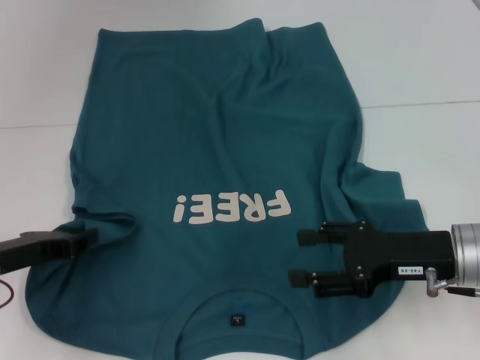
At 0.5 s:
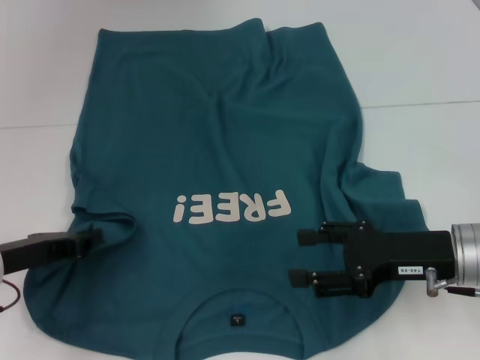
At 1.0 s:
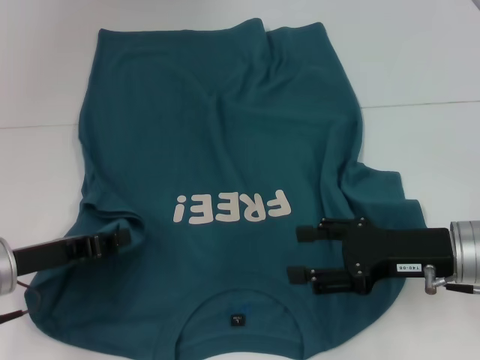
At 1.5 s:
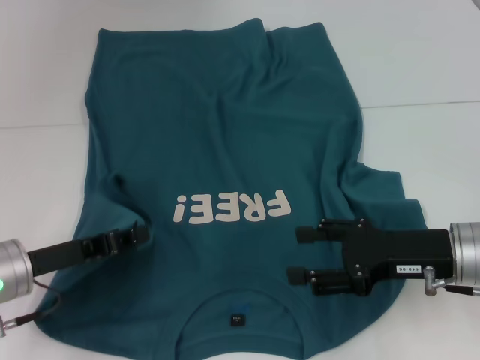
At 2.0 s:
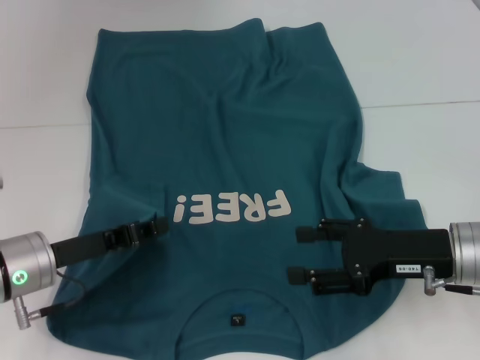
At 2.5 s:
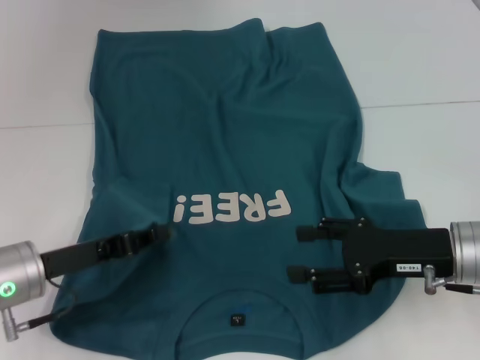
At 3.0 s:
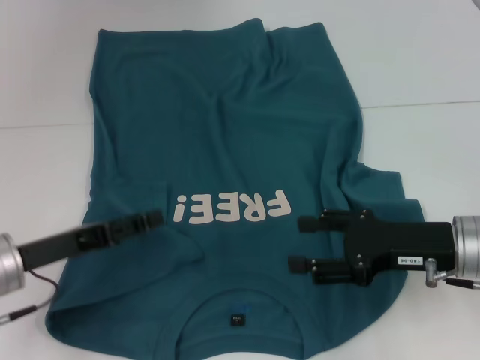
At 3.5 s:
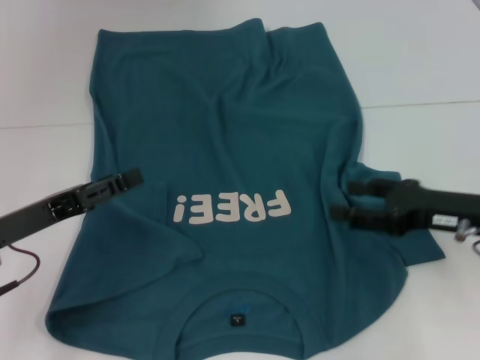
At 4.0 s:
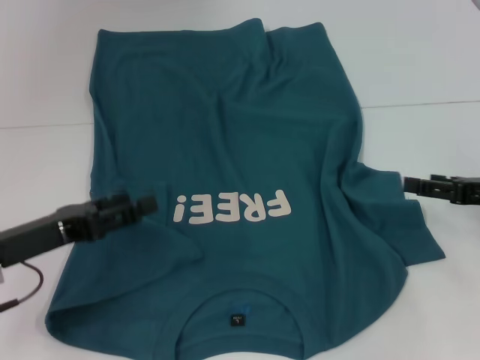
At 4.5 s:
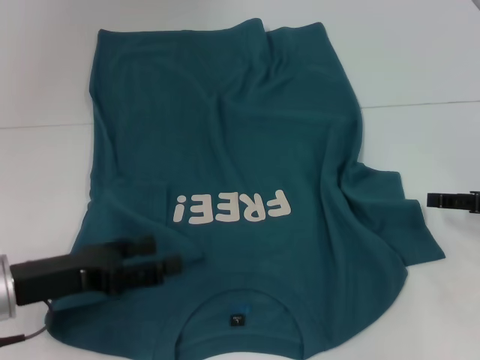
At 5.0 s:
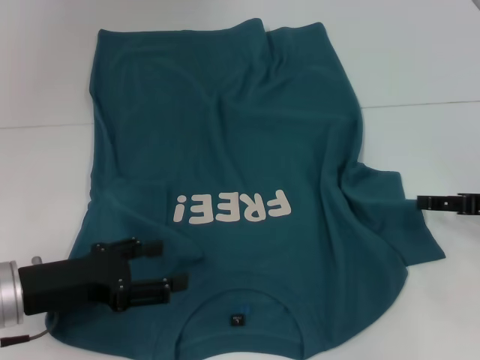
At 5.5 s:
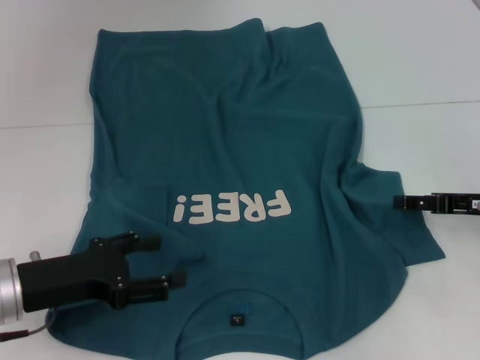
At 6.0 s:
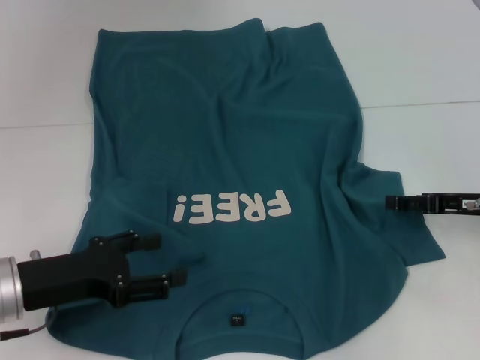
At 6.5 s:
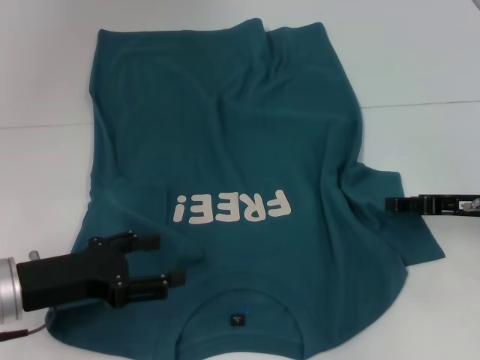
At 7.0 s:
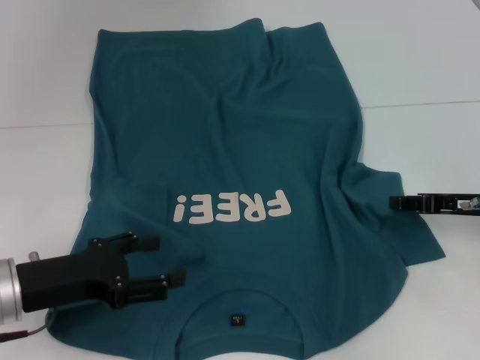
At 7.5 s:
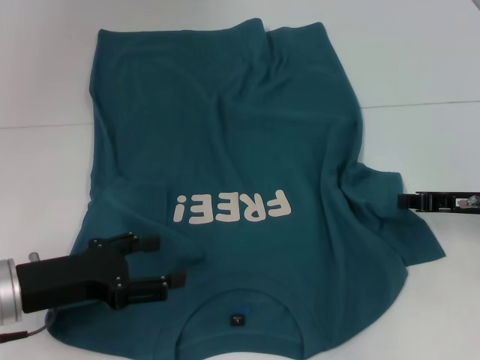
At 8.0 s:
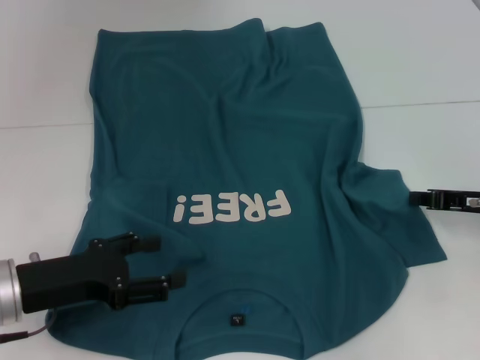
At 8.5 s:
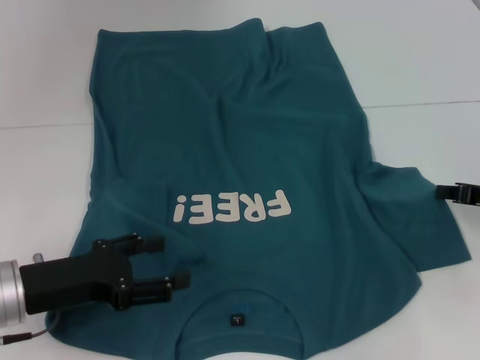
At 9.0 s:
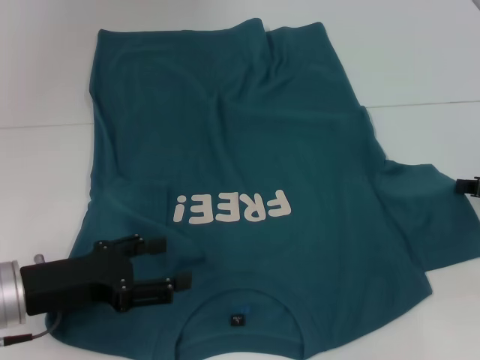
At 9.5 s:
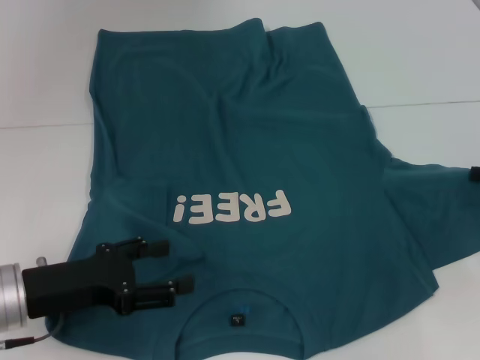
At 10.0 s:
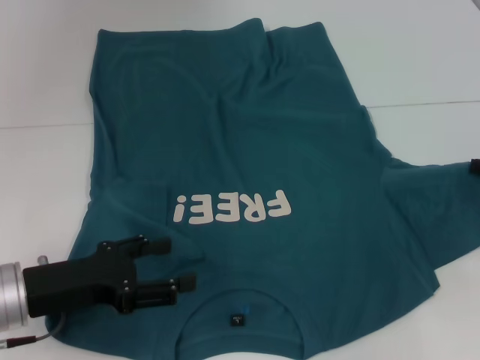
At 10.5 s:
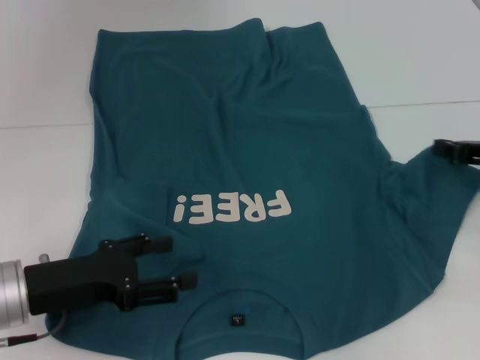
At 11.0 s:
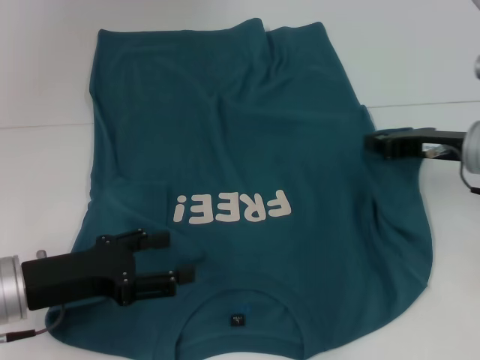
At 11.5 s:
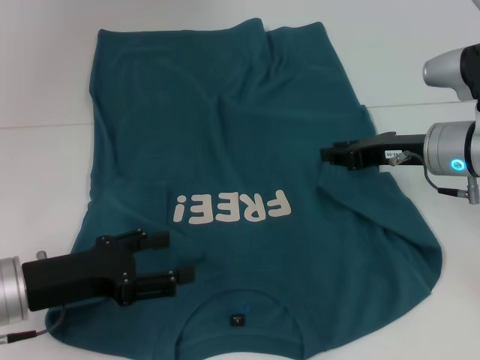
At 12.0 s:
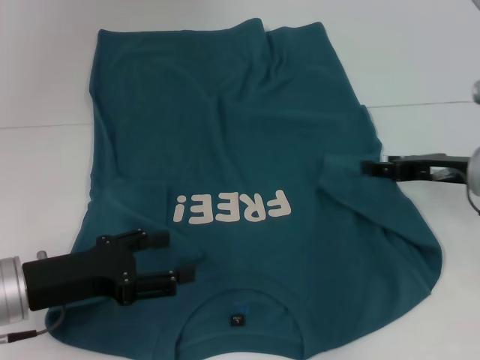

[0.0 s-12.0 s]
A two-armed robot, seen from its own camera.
Step, 0.0 to 3.0 s: Fold the bottom left sleeve with your left hand.
0.0 to 2.0 s: The left gripper moves to the right, some 5 cm.
2.0 to 4.0 s: The right gripper moves to the right, roughly 10 cm, while the left gripper opens its fingers.
6.0 to 8.0 s: The right gripper closes.
8.0 to 10.0 s: The right gripper shifts approximately 5 cm to the right.
10.0 to 12.0 s: The right gripper goes roughly 10 cm to the left, and opens.

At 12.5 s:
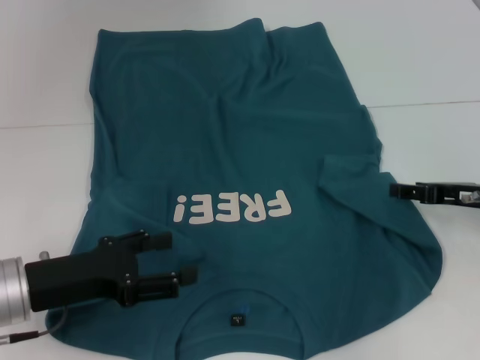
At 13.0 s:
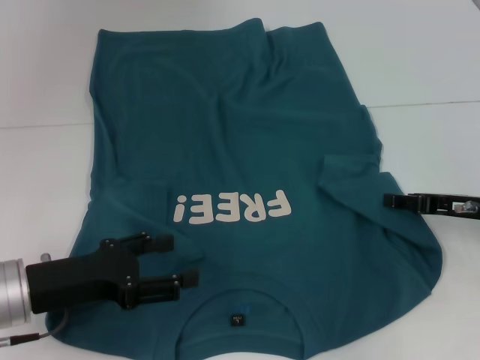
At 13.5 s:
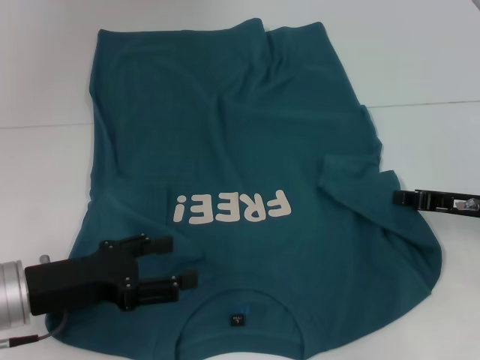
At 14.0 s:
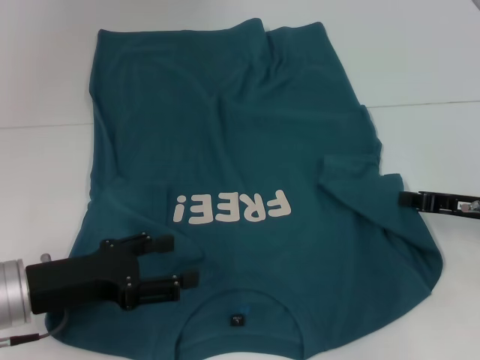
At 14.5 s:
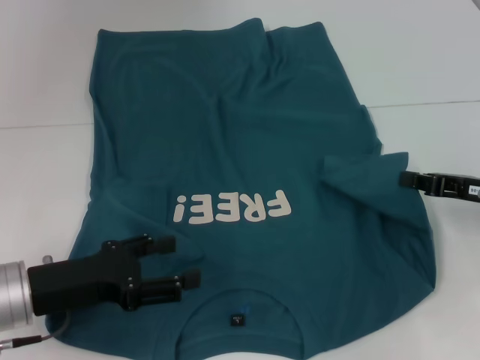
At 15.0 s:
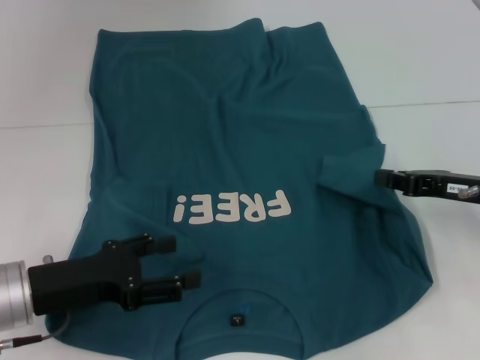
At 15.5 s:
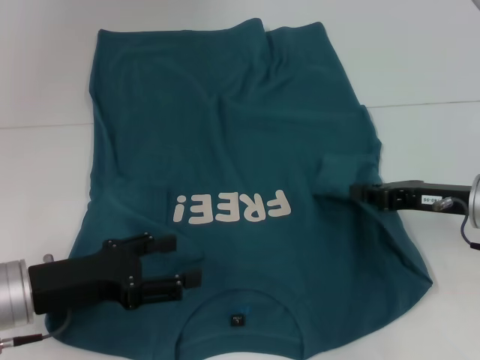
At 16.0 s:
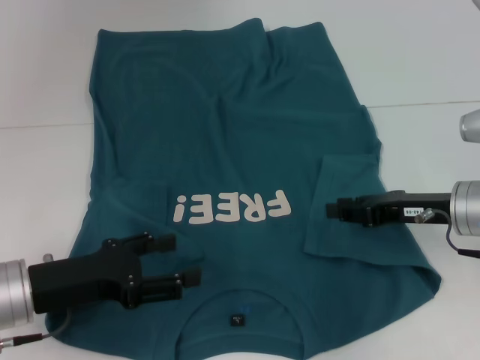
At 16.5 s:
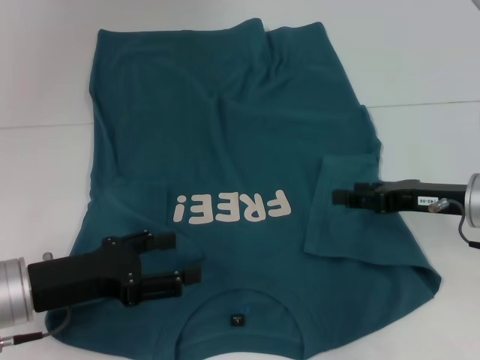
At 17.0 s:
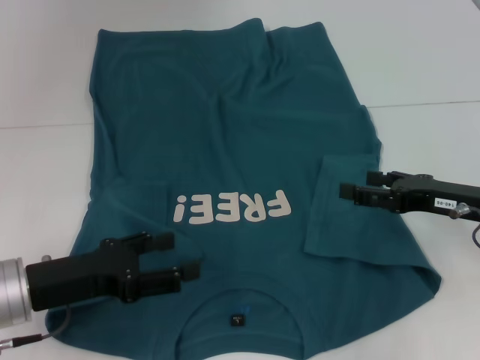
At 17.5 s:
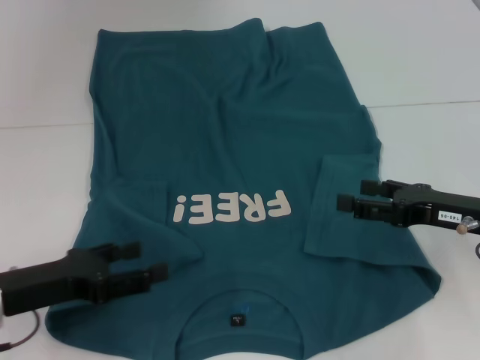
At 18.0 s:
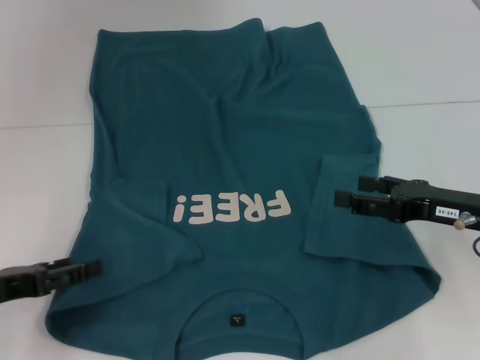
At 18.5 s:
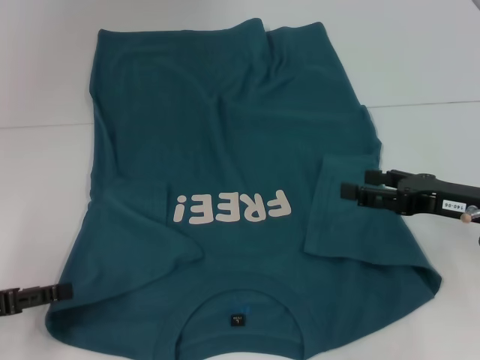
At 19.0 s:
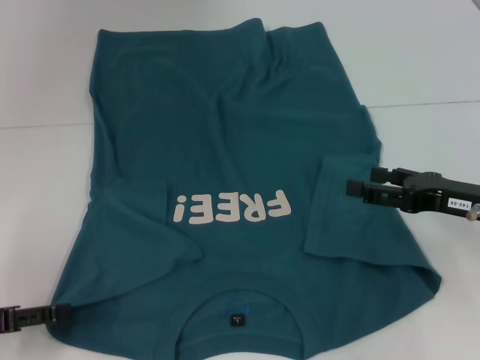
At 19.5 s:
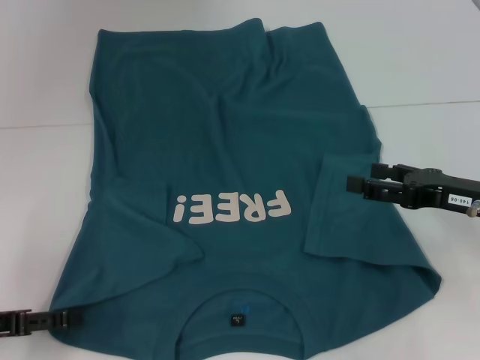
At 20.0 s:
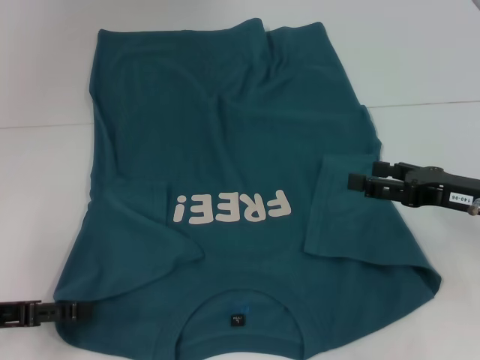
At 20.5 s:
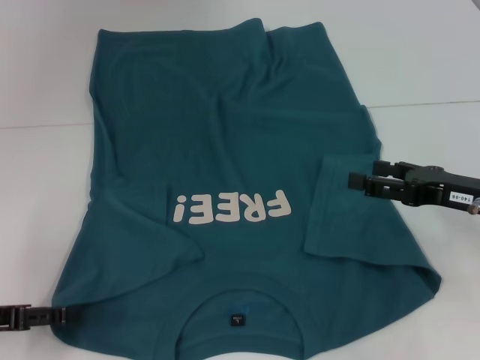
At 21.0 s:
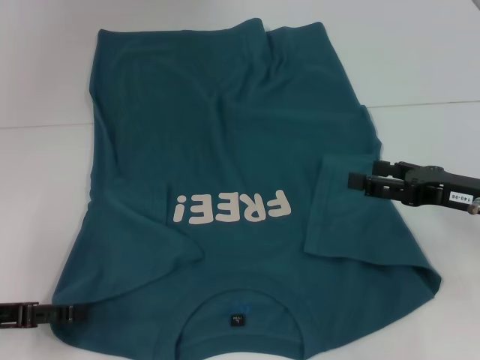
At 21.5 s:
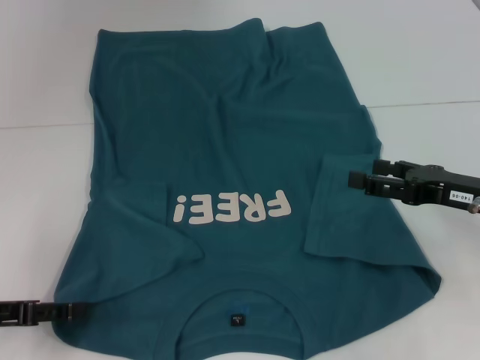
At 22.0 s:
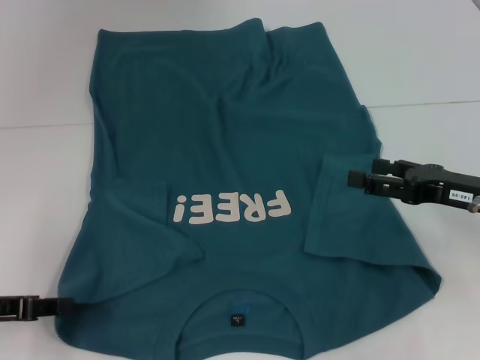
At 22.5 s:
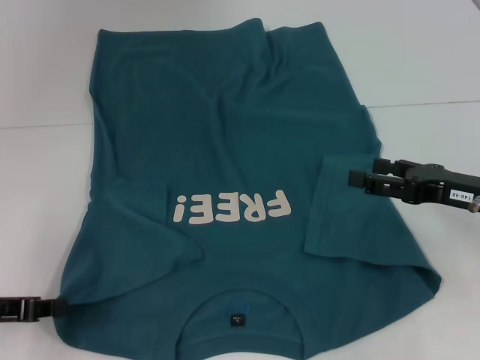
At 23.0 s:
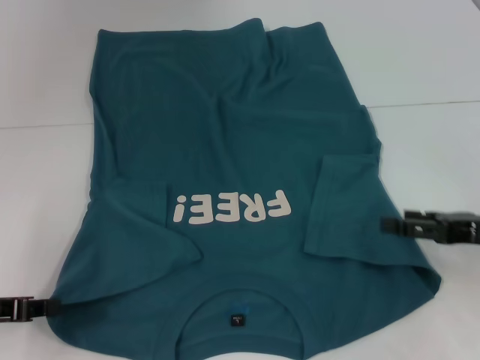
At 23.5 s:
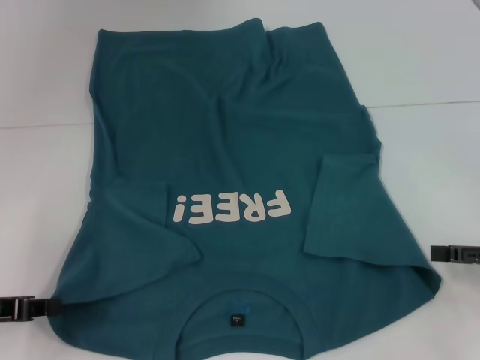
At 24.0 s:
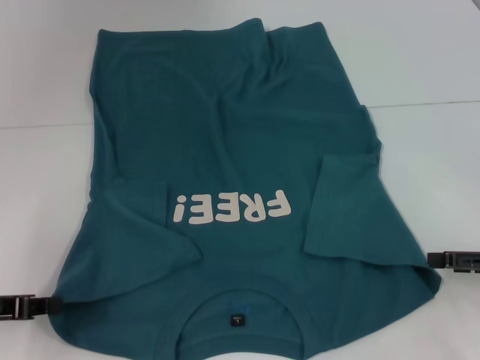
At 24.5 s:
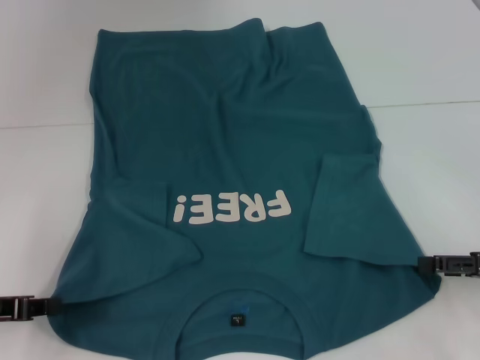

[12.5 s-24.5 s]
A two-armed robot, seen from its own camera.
Step, 12.5 to 16.0 s: Fold the bottom right sleeve to the right.
Step, 16.5 to 22.5 s: Grab the bottom left corner with your left hand.
12.5 to 14.5 s: The right gripper closes up.
14.5 to 16.5 s: The right gripper opens.
16.5 to 18.5 s: The left gripper shifts about 10 cm to the left.
18.5 to 20.5 s: The grippers make only small movements.
20.5 to 22.5 s: The left gripper closes its fingers.
22.5 to 24.5 s: The right gripper heads to the right, covering approximately 5 cm.

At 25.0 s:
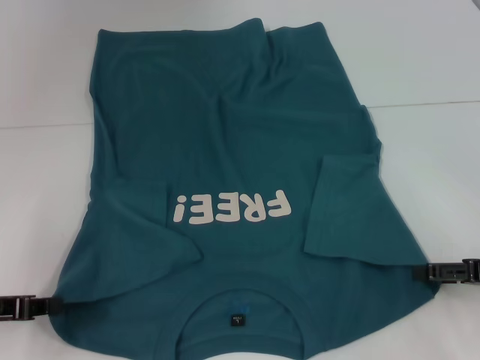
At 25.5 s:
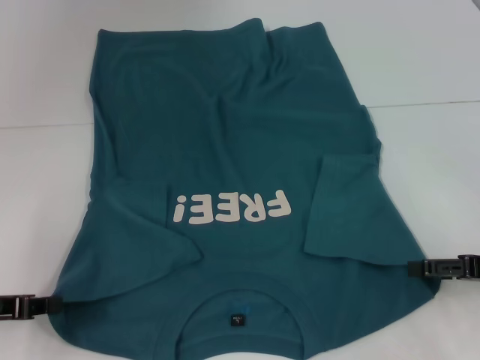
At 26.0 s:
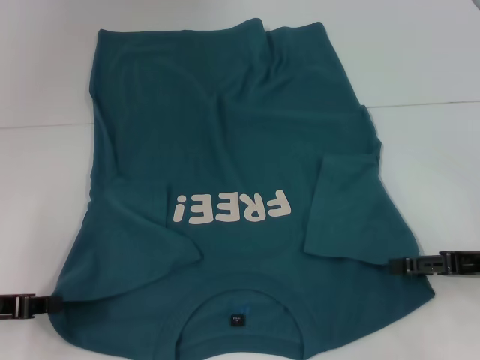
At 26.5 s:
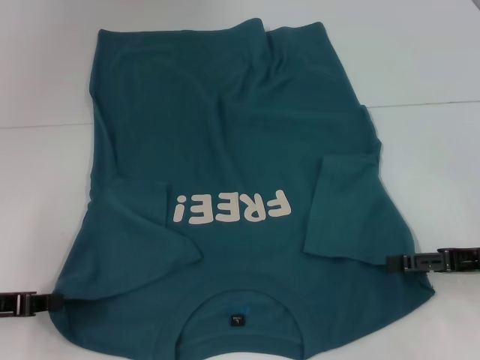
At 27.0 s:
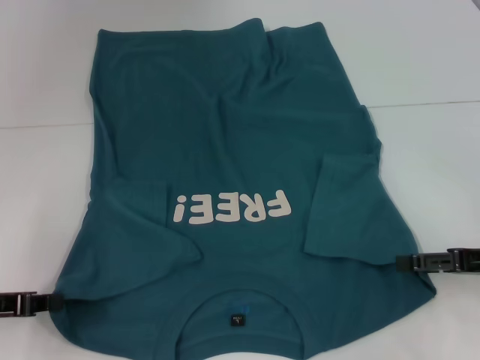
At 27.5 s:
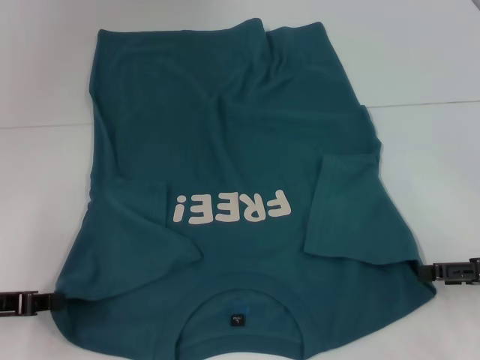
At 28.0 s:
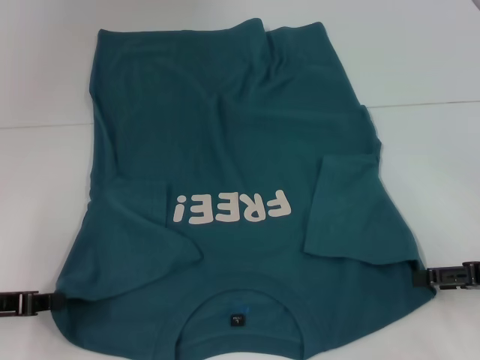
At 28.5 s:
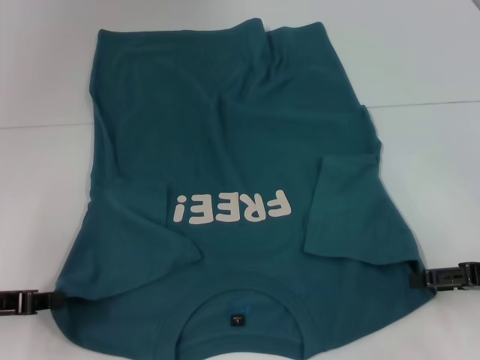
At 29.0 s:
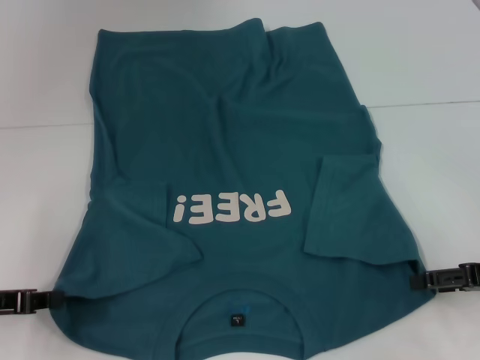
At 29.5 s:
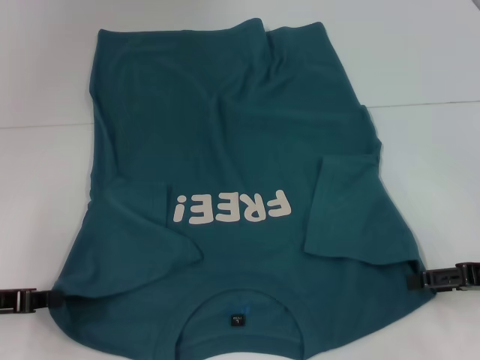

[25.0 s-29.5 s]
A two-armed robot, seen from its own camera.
25.0 to 29.5 s: The grippers stay close to where they were, moving slightly.
